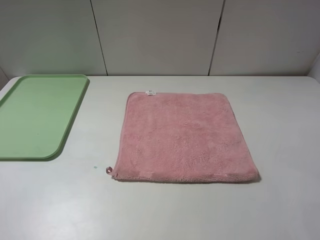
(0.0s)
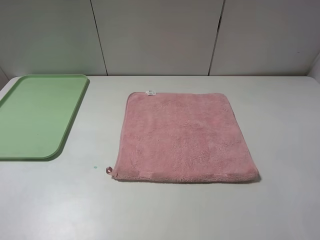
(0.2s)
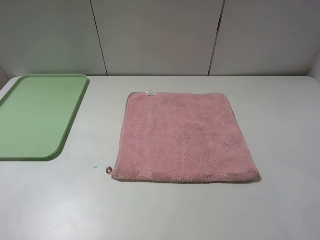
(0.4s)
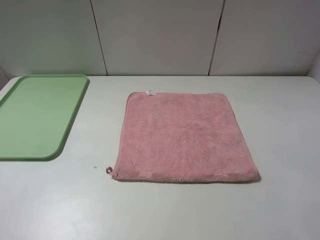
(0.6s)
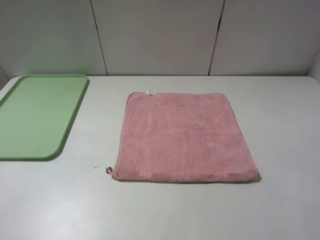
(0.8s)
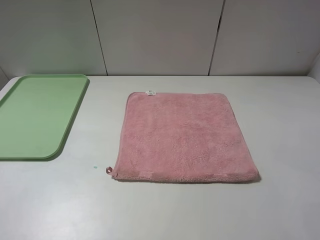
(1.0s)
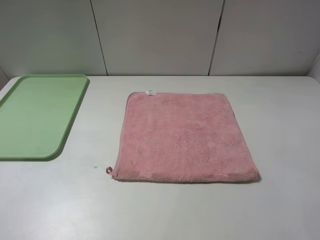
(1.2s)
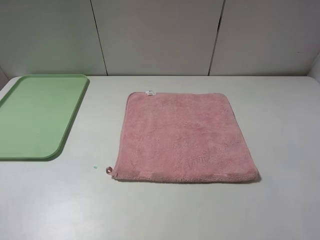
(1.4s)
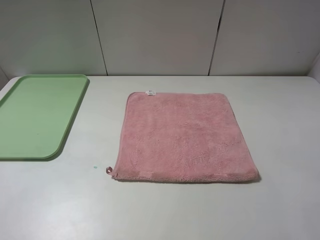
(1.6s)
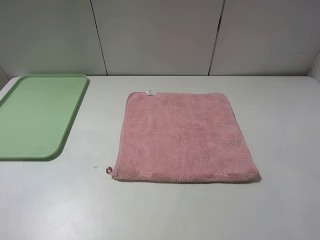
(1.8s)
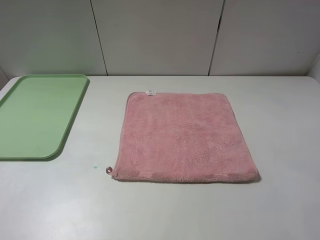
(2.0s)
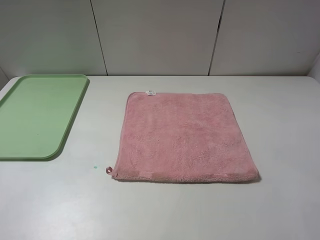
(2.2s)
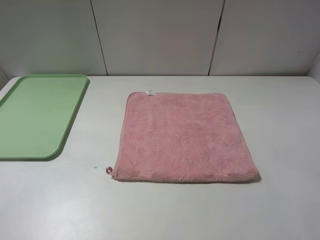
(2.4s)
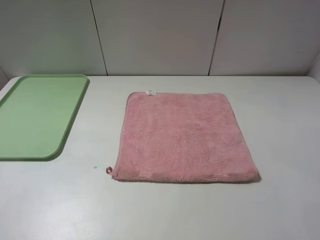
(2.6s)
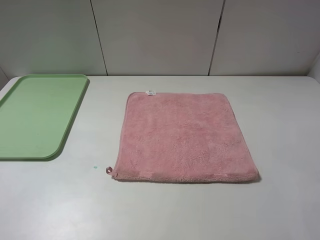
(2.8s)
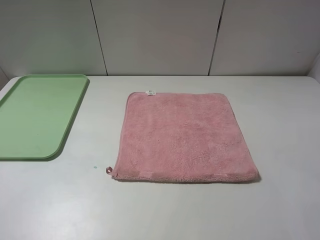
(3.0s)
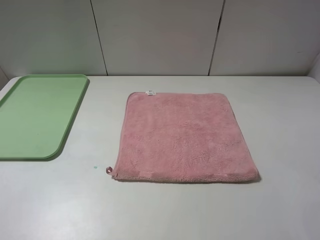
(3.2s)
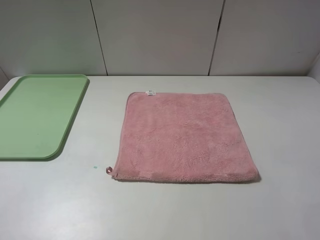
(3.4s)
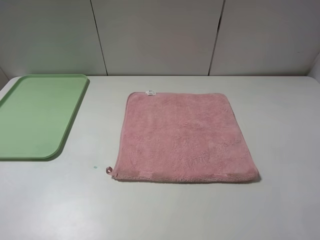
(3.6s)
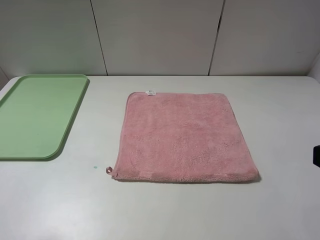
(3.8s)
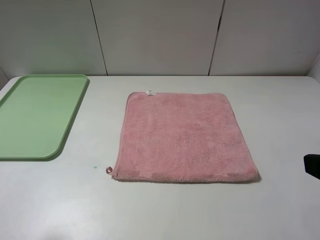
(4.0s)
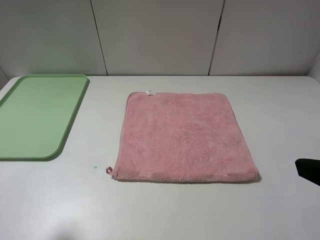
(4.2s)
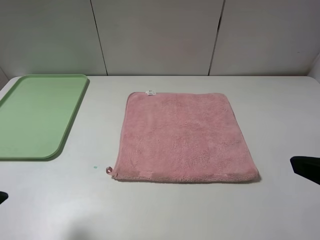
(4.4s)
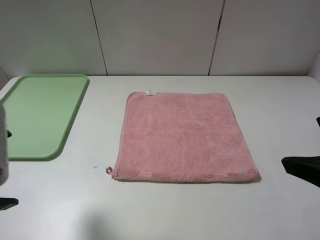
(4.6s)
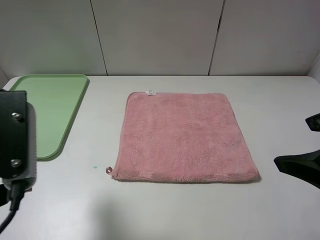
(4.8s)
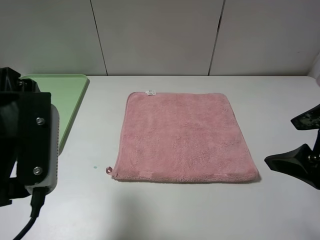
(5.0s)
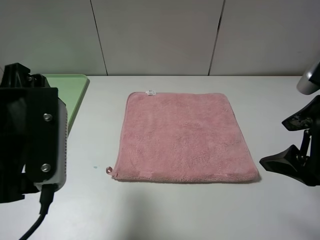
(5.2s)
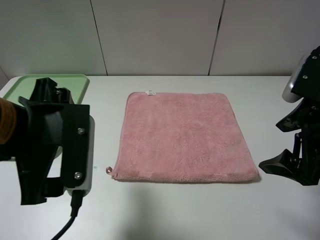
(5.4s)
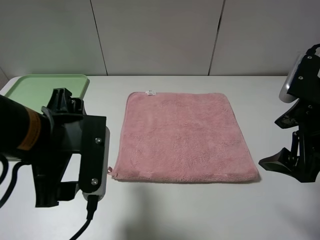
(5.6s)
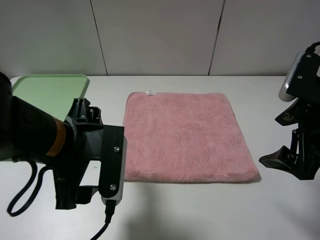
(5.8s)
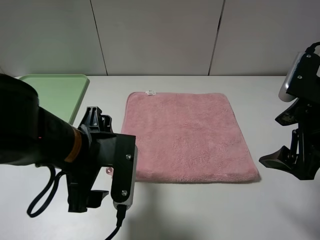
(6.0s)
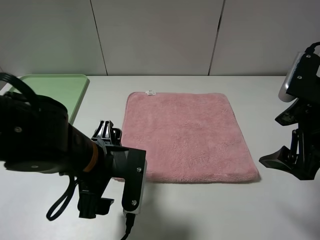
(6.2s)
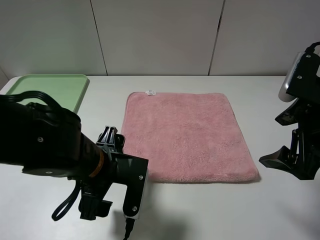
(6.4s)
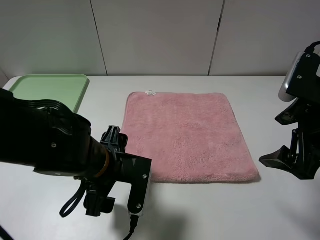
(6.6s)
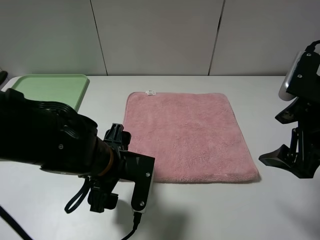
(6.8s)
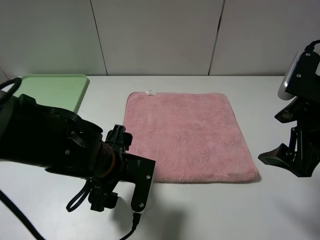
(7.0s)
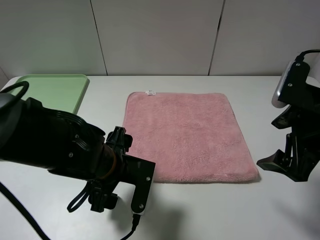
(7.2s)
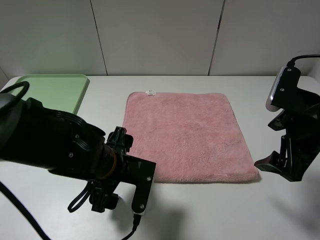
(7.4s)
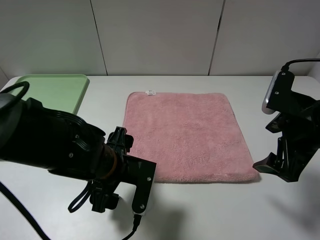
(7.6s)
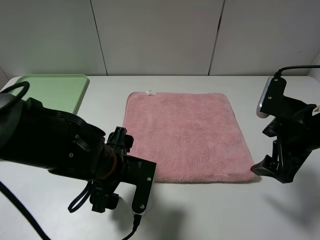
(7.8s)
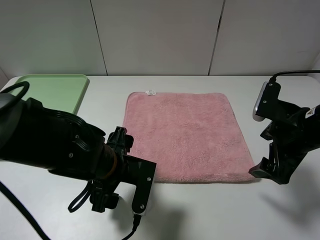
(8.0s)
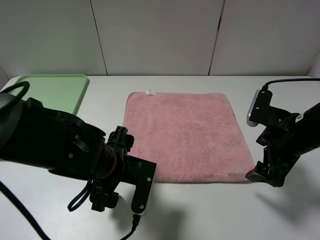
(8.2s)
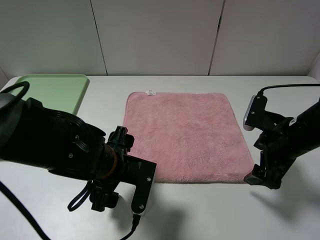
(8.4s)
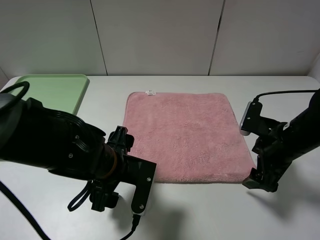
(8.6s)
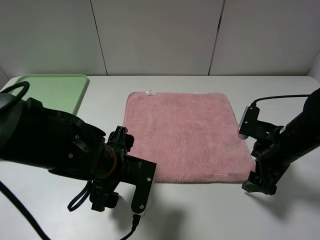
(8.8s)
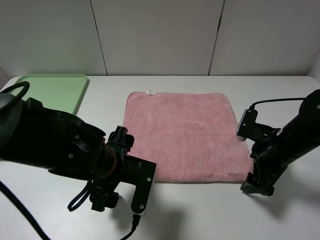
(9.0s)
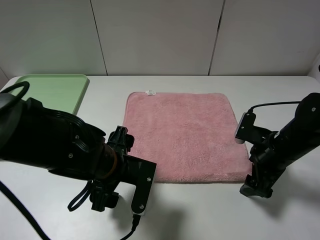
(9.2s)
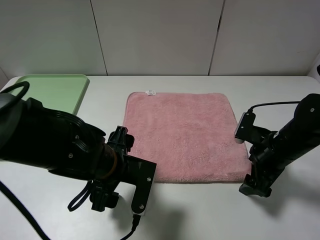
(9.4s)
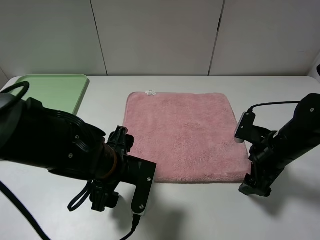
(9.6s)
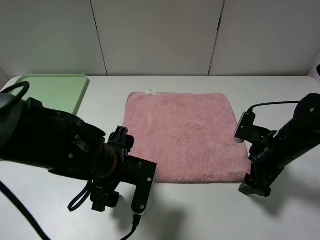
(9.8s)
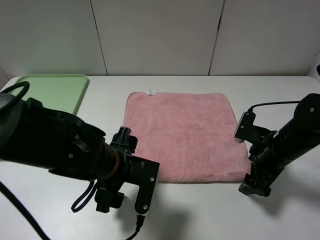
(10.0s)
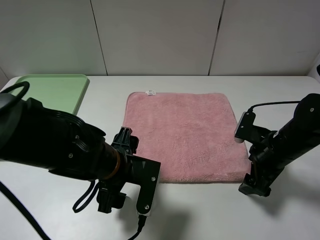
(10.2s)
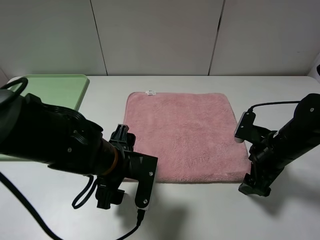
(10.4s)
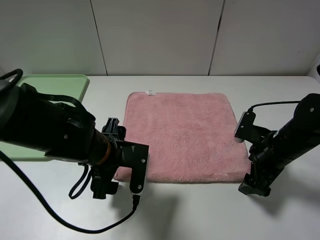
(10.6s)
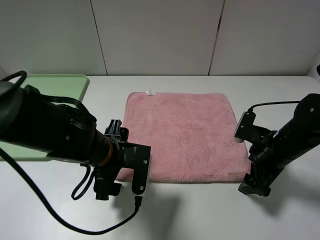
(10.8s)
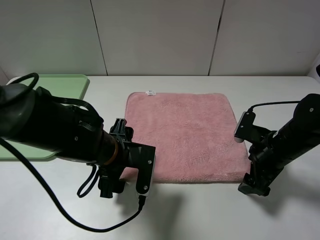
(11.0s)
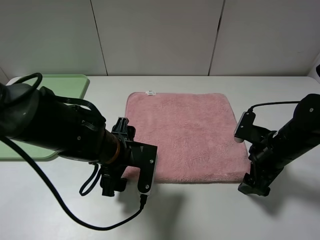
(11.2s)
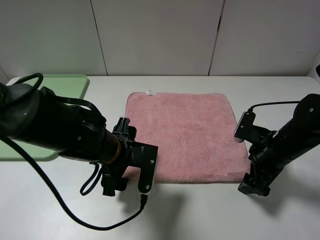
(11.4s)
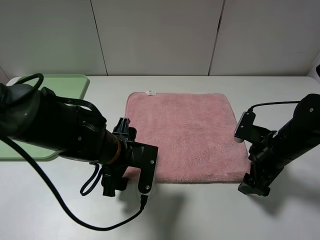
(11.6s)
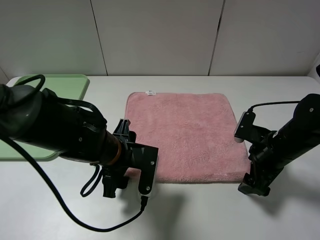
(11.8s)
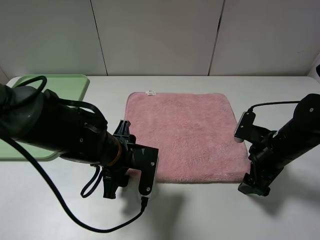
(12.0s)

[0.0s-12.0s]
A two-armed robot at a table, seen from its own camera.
0.0s to 3.0s: The two grippers keep their place.
3.0s to 4.4s: The right gripper moves forward, about 5 cm; the left gripper travels forward and to the right by roughly 10 cm.
4.4s to 6.0s: The left gripper goes about 20 cm to the right, downward and forward; the right gripper is displaced forward and downward by approximately 10 cm.
6.0s to 7.6s: The left gripper shifts approximately 5 cm downward.
7.6s to 9.0s: The right gripper moves downward, about 10 cm.
9.0s to 12.0s: There are only small adjustments of the grippers.

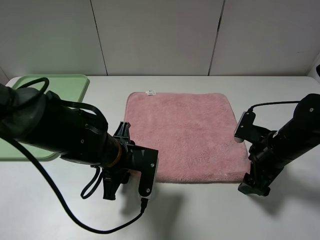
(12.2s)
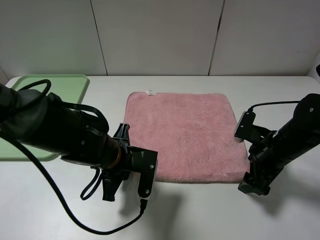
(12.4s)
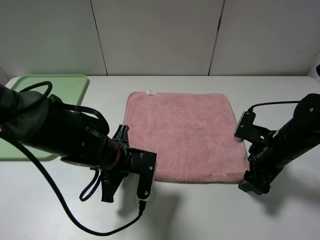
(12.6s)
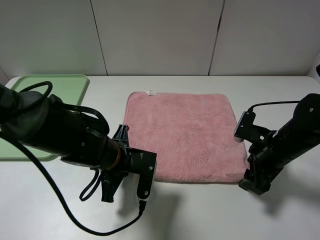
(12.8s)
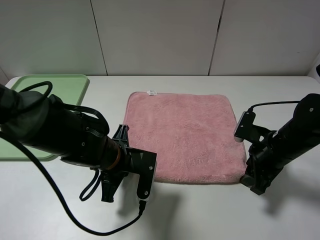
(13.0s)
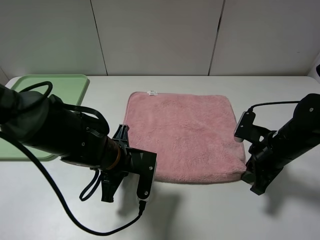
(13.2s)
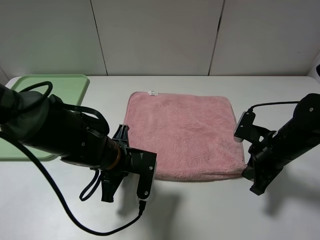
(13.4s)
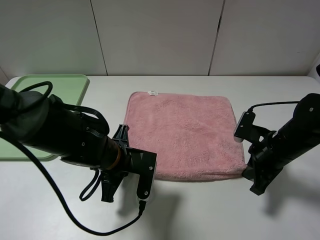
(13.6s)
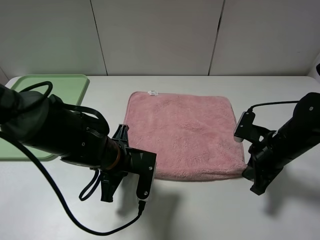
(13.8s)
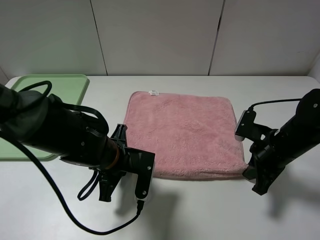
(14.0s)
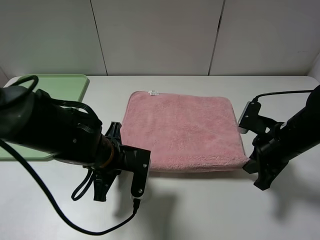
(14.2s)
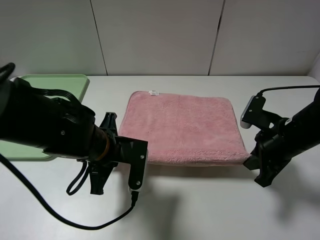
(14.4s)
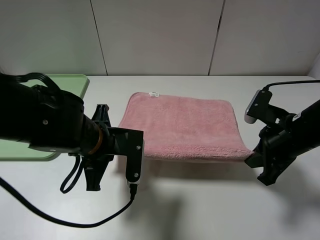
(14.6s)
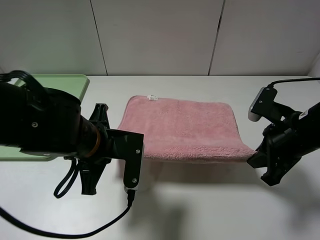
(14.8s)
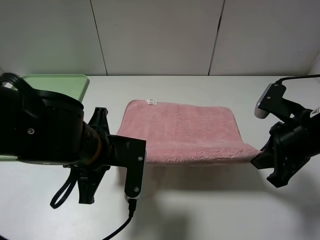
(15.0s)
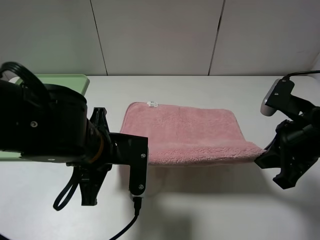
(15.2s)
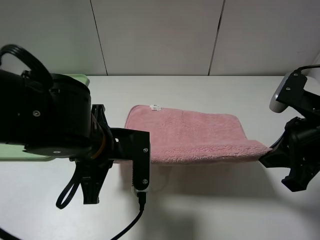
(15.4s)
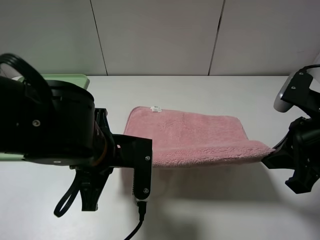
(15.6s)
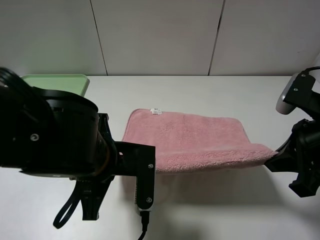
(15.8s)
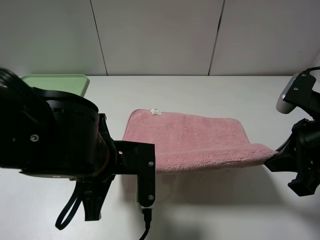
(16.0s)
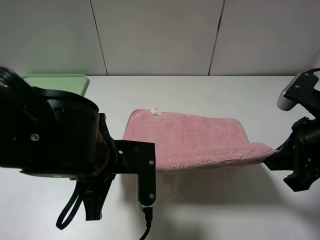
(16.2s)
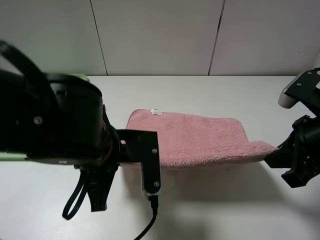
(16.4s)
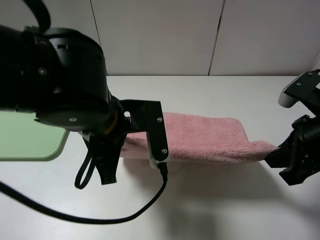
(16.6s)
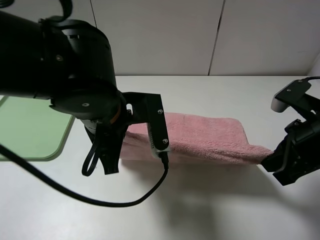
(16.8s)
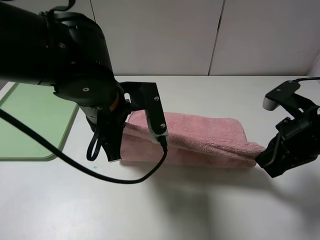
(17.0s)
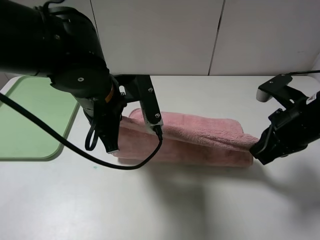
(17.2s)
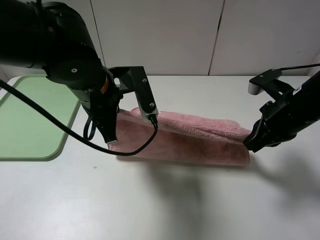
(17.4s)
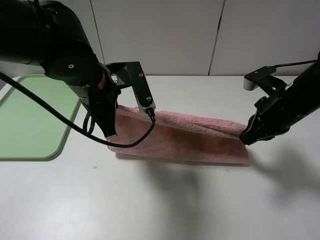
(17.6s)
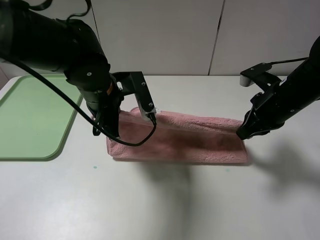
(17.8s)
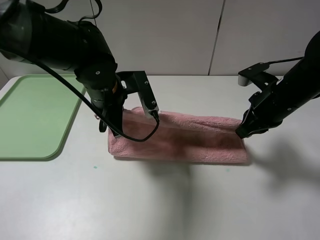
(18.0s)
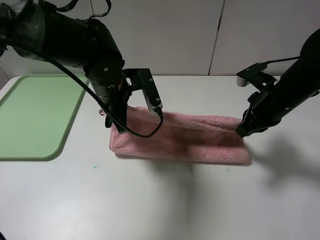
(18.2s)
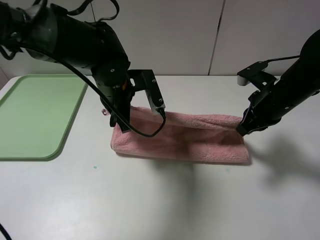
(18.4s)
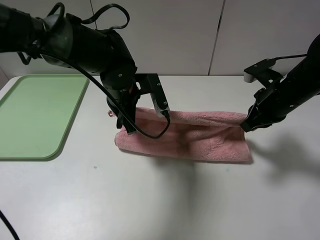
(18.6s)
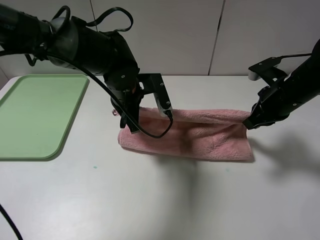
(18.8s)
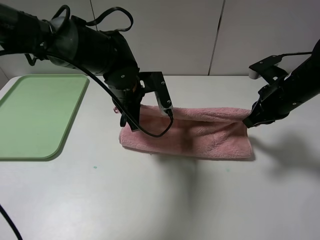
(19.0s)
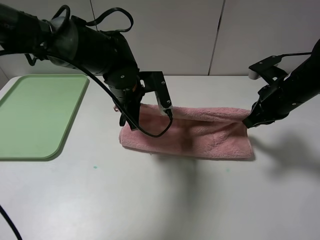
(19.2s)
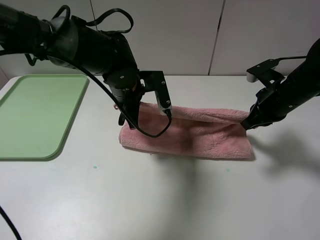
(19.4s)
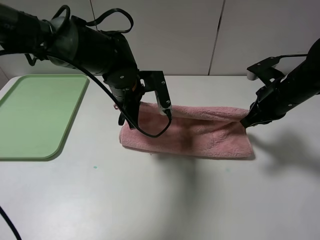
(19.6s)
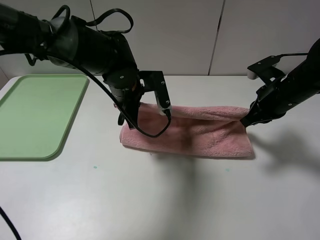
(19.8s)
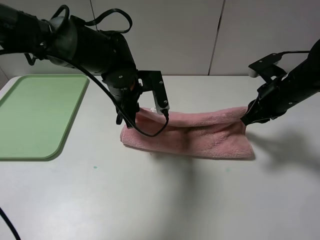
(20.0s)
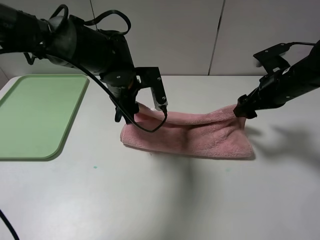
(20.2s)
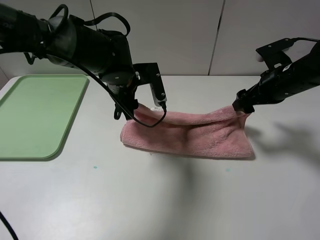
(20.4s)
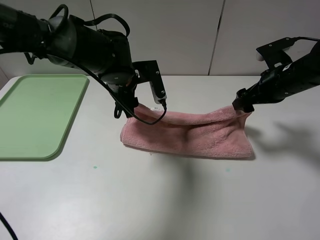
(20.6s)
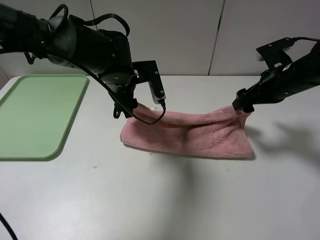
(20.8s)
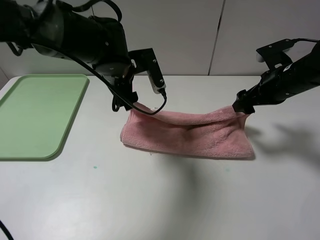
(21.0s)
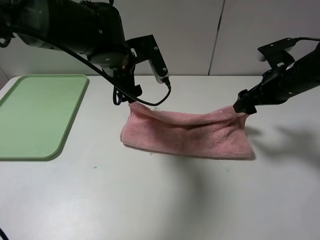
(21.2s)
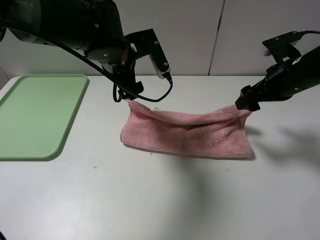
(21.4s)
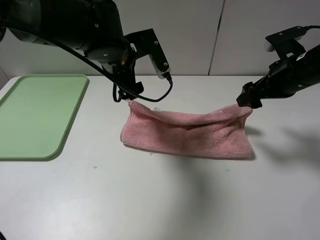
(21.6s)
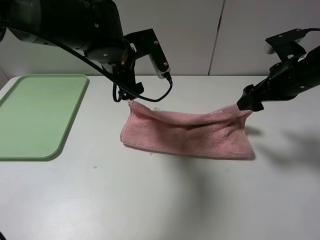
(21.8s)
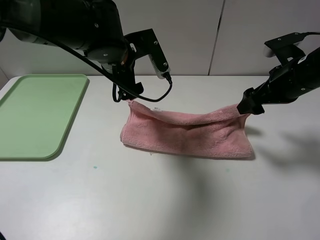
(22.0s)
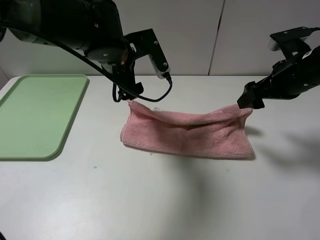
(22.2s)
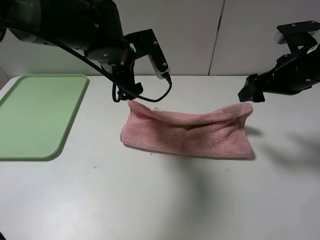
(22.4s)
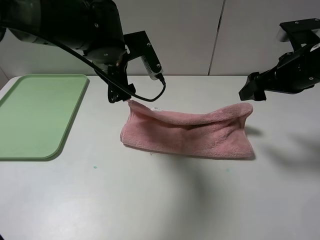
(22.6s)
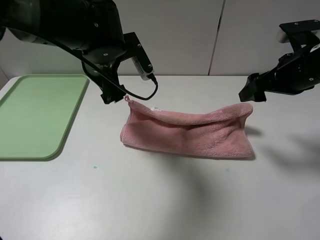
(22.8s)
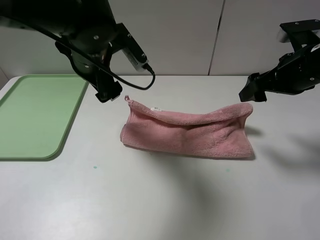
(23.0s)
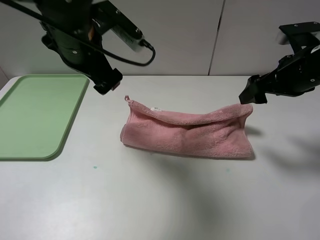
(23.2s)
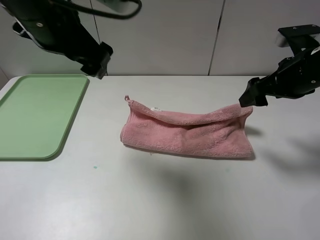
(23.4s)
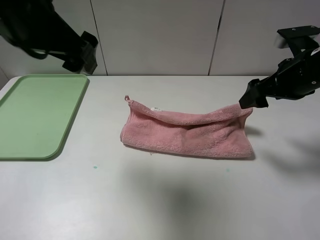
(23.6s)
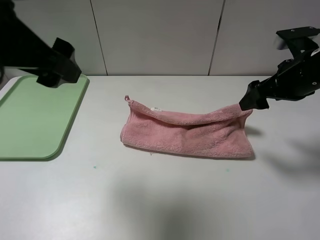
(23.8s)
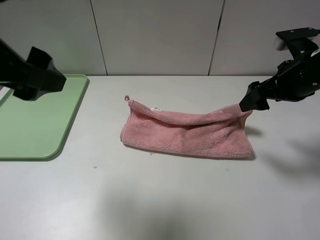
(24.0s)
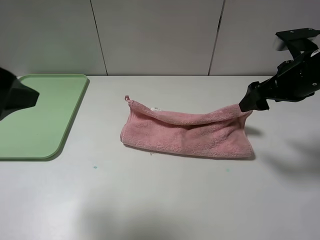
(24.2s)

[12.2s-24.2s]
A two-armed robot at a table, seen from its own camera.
12.2s to 13.8s: The right gripper closes up, while the left gripper closes its fingers.
13.8s to 15.2s: The two grippers go approximately 10 cm upward.
15.2s to 16.6s: The left gripper shifts by about 5 cm.
16.6s to 18.2s: The two grippers go some 10 cm forward.
18.2s to 19.8s: The grippers make only small movements.
19.8s to 21.2s: The left gripper shifts roughly 5 cm upward, and opens its fingers. The right gripper opens.
21.2s to 22.6s: The right gripper changes place by some 5 cm.
22.6s to 24.2s: The left gripper is displaced backward, to the left and upward by roughly 30 cm.
